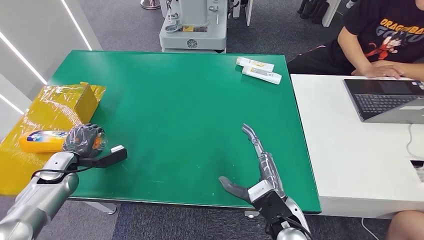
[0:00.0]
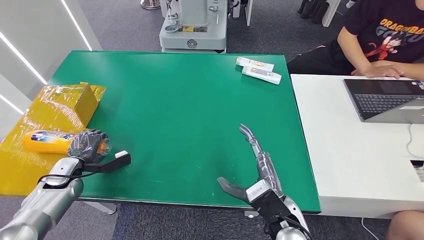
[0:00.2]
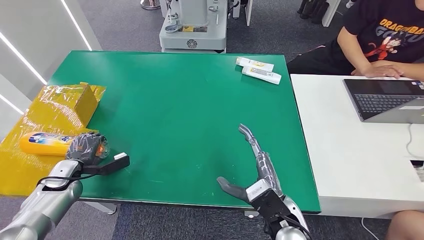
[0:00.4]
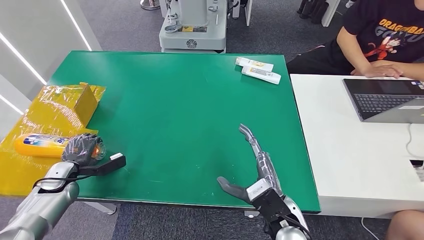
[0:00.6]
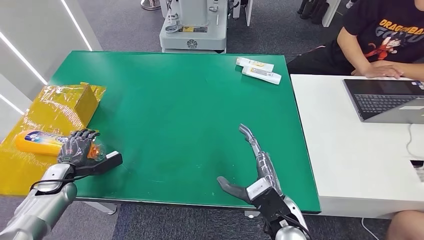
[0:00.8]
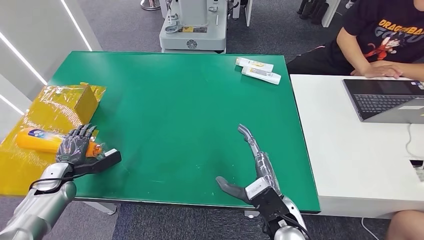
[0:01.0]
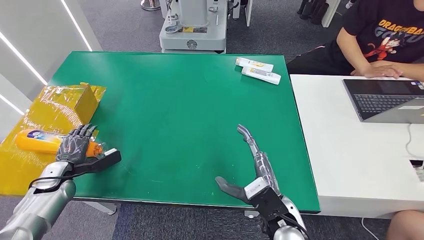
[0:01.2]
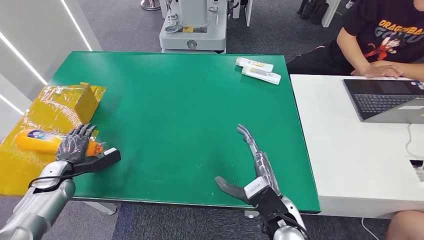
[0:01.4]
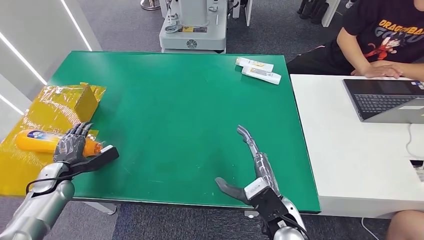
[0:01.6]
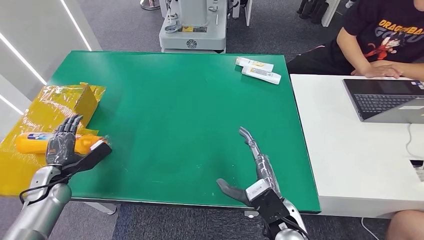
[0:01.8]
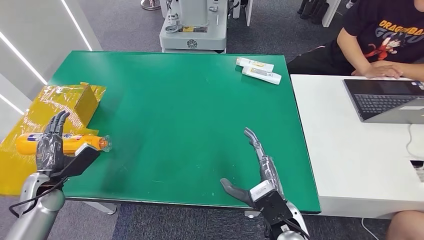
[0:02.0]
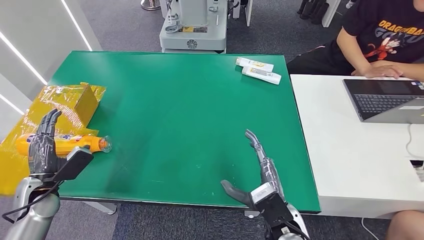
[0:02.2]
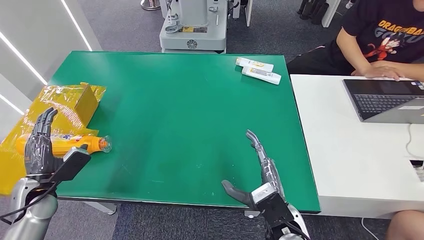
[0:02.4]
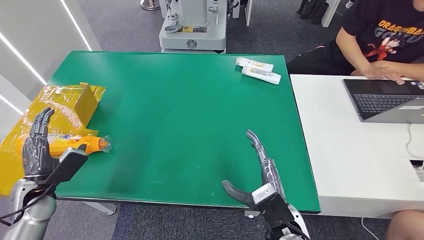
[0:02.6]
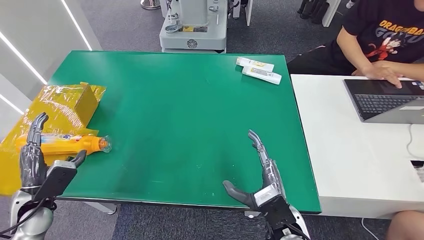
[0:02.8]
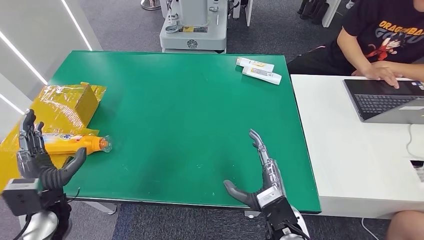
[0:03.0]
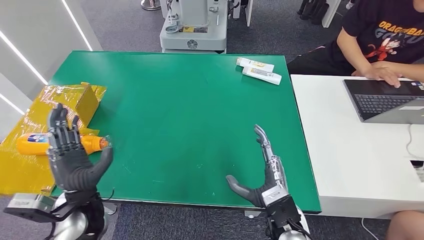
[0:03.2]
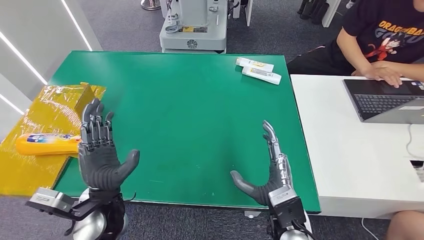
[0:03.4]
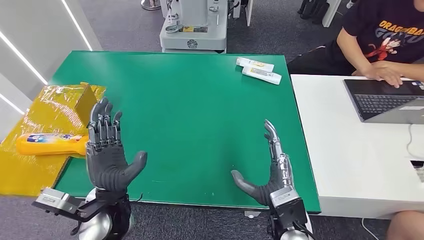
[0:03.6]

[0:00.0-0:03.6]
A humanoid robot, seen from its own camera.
Step, 0:00.0 to 0:03.4: Turn the bottle to the front side.
0:01.8 to 0:03.6: The left hand shifts roughly 25 cm to the right.

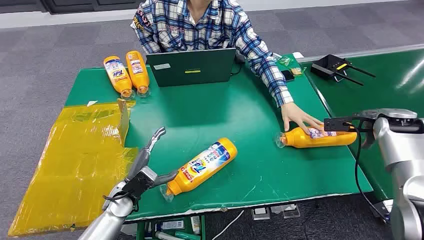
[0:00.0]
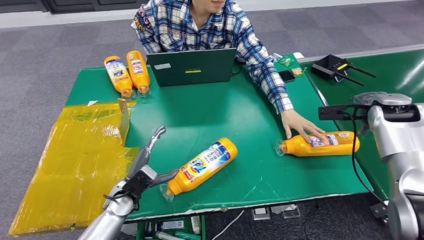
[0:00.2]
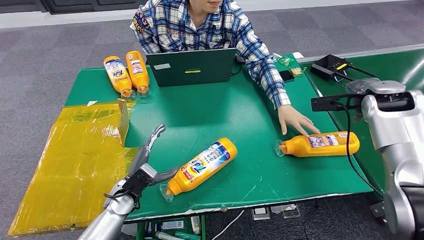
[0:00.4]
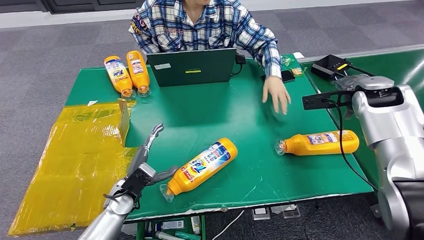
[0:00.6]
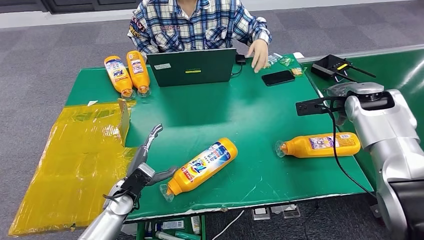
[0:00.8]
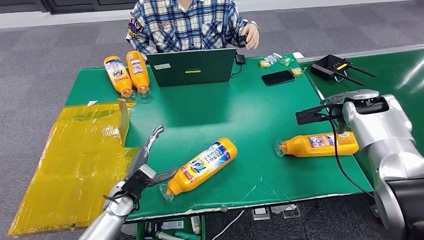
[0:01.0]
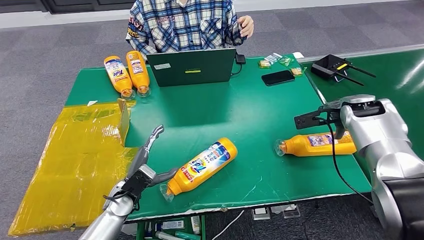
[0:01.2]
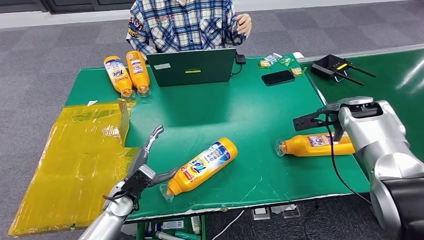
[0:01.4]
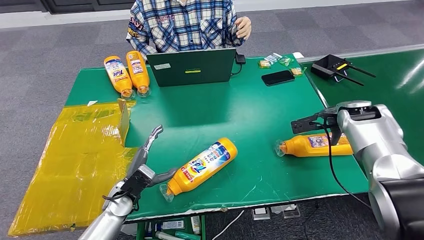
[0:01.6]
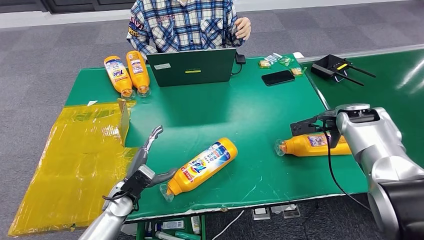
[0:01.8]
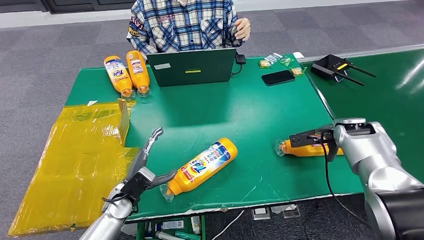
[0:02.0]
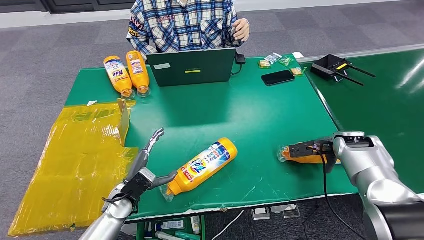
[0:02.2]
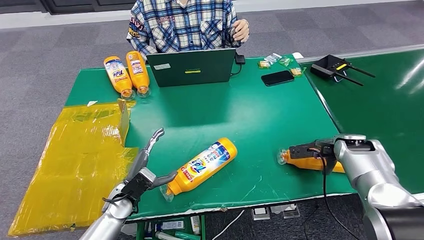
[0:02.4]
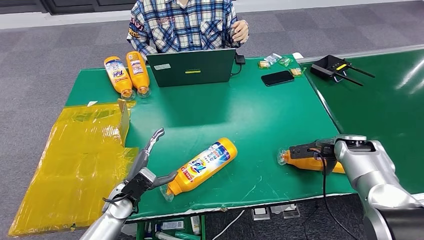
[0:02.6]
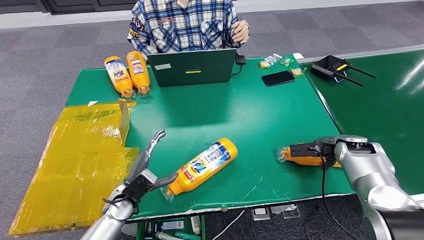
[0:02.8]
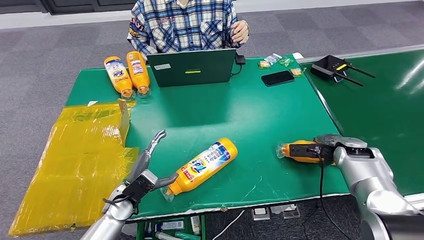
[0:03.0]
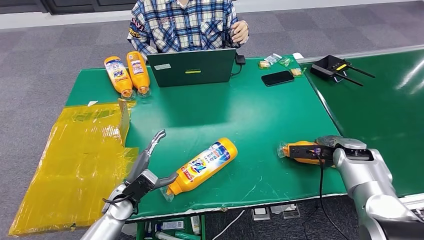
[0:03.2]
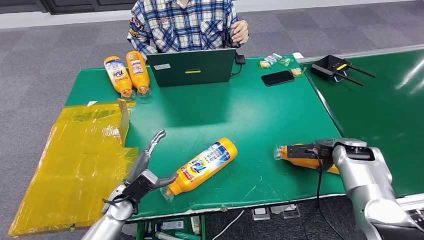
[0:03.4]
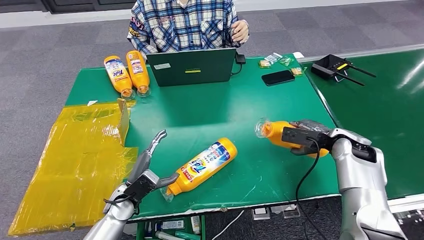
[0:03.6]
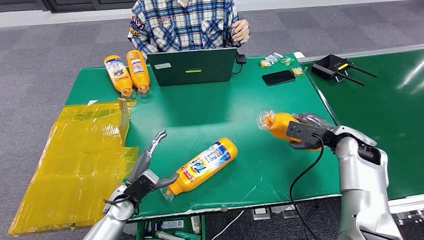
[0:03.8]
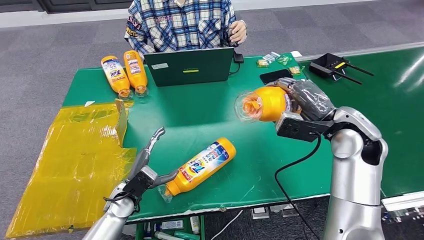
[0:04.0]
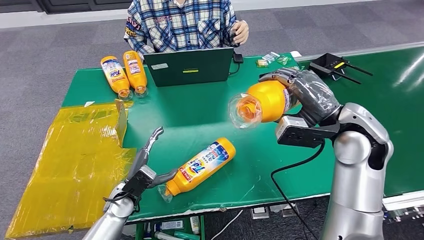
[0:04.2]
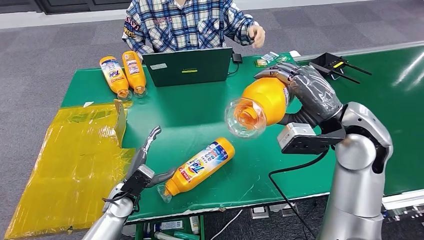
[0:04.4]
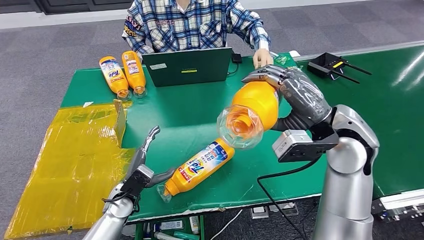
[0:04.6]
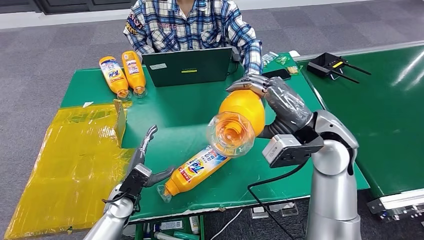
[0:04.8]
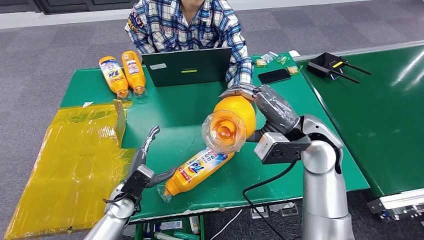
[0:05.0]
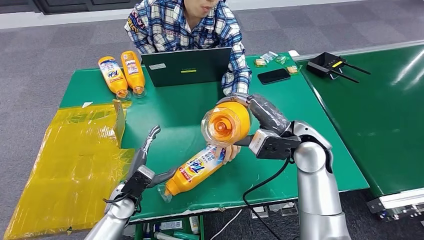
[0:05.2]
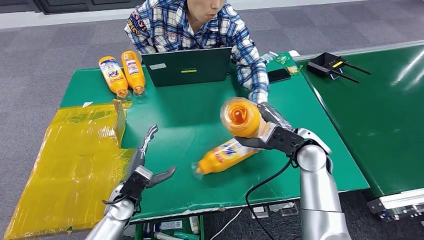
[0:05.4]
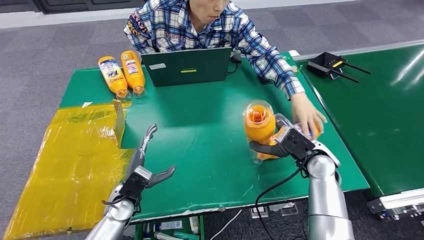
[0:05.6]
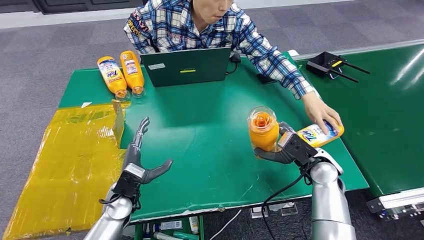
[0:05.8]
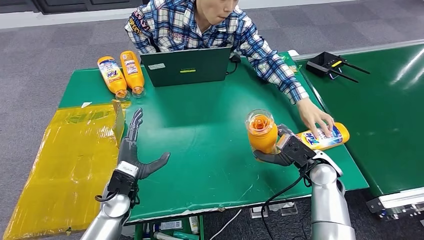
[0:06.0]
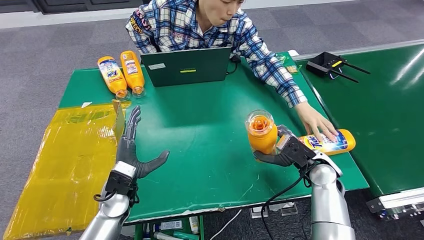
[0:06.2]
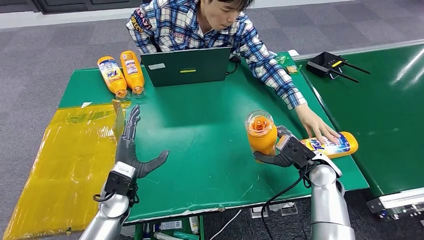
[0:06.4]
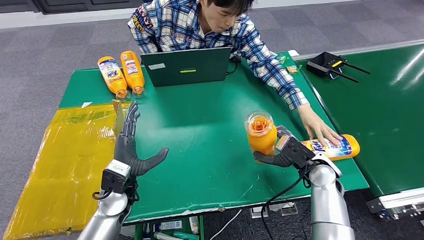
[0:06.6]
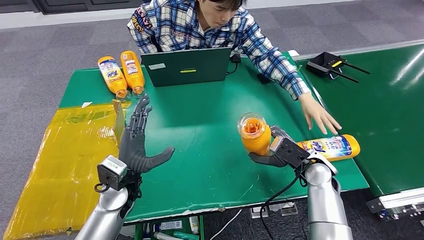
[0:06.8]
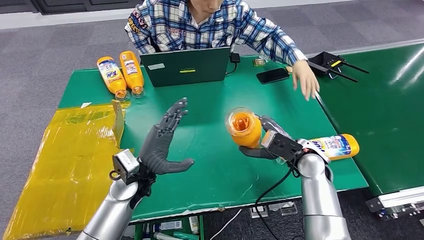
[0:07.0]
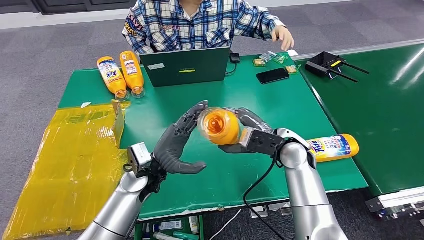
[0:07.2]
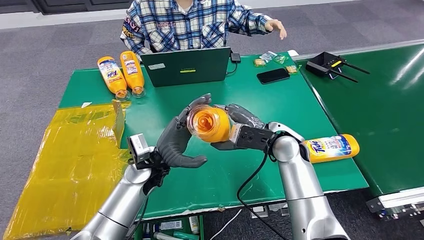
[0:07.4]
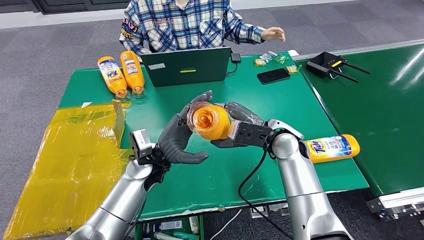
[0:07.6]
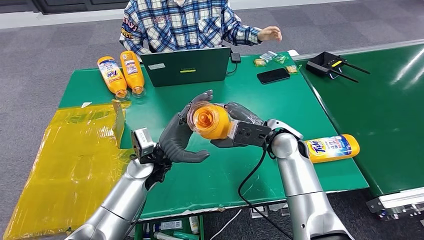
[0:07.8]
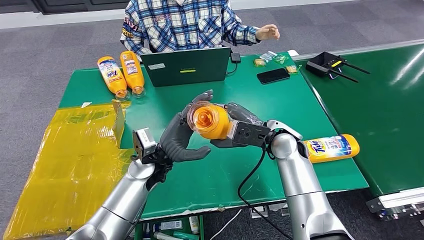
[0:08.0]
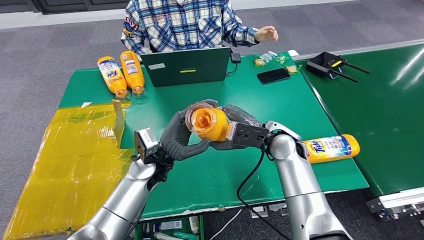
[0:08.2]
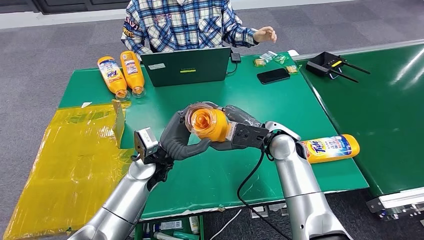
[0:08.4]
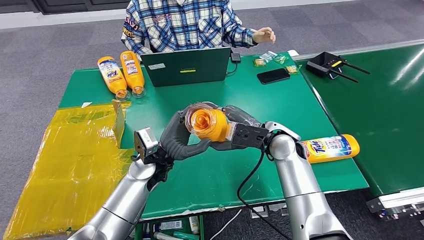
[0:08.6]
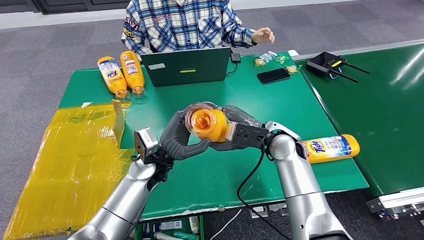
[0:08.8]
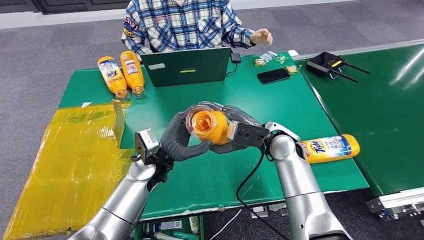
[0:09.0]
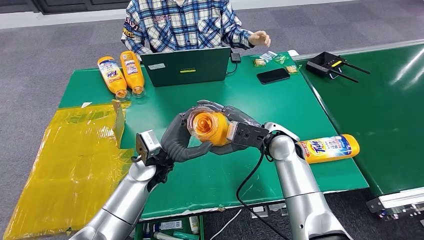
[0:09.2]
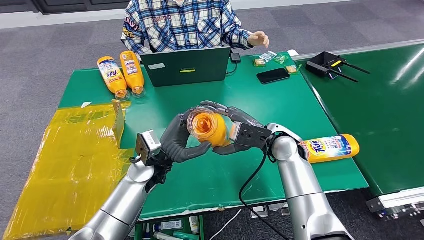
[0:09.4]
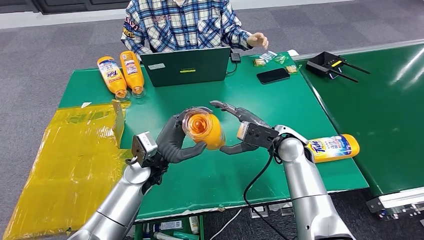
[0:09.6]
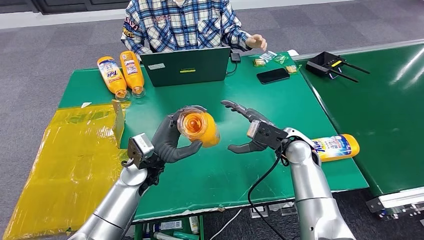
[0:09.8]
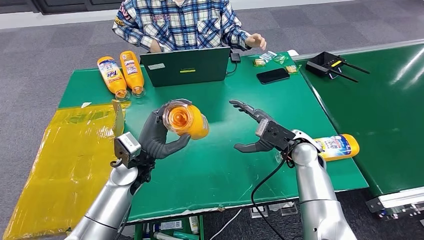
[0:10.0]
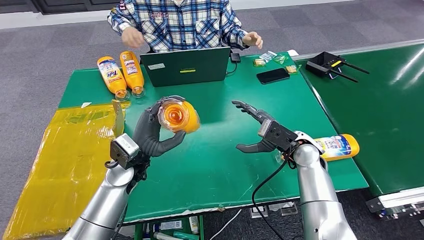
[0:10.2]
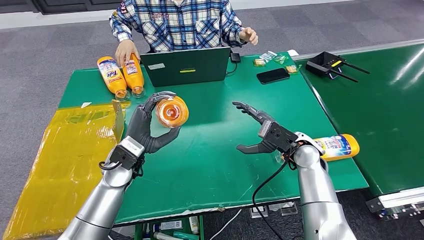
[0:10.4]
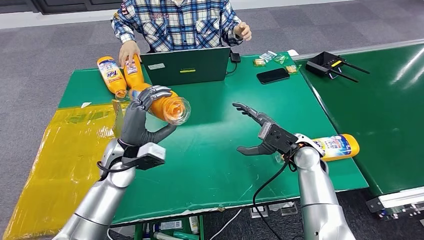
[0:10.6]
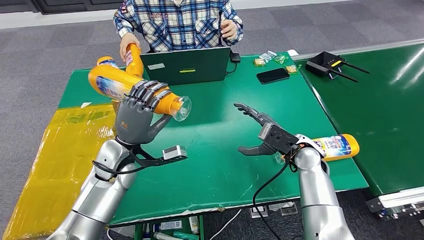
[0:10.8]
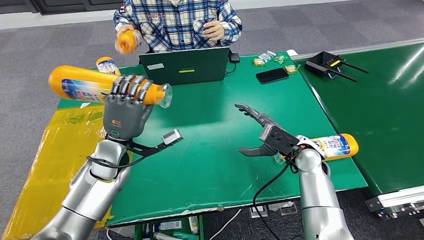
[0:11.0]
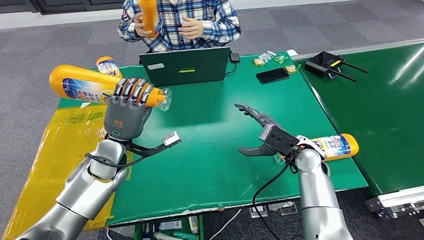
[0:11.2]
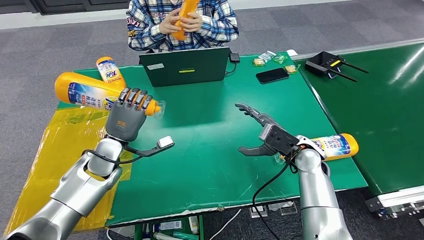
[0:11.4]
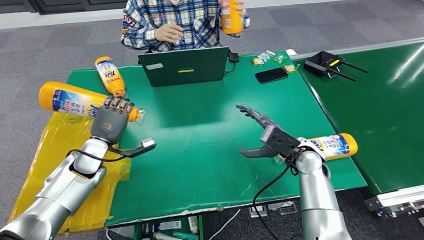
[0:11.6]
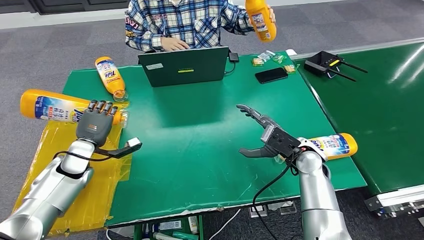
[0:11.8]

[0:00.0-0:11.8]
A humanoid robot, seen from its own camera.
Step, 0:00.0 to 0:03.8: Pick up the bottle from the table.
Step, 0:04.0 to 0:11.8: Turn the bottle to the front side.
0:01.4 to 0:03.0: The right hand goes some 15 cm downward and backward.
0:07.4 to 0:08.8: The hands stay close to where they were, moving slightly.
